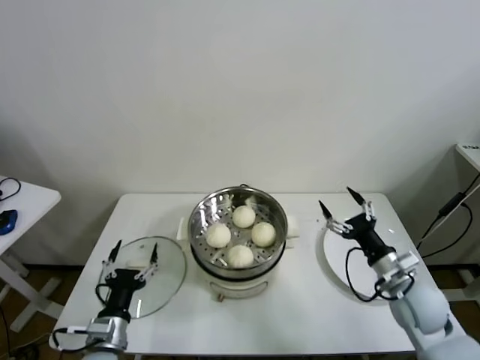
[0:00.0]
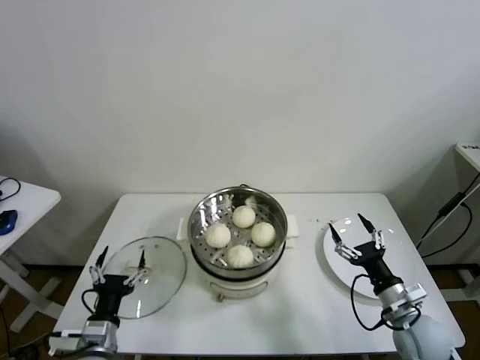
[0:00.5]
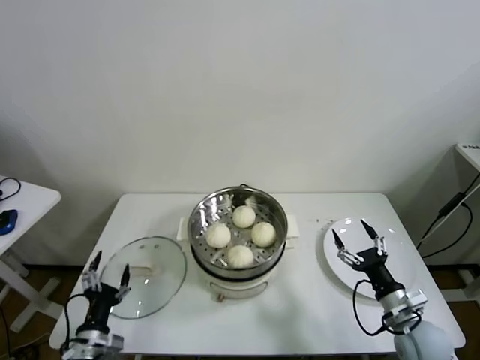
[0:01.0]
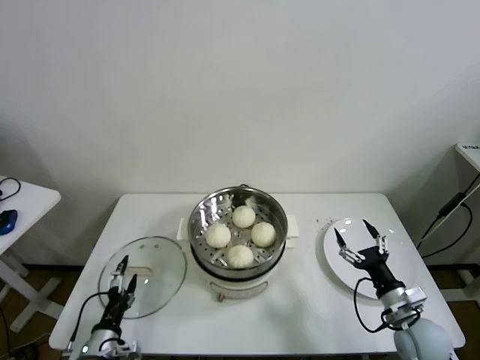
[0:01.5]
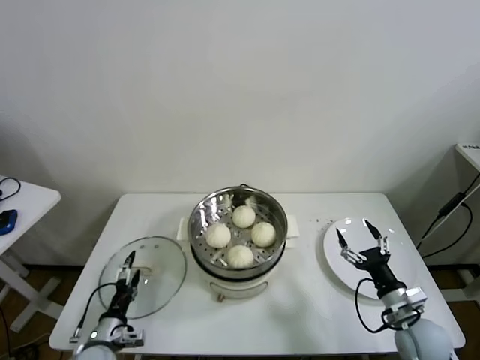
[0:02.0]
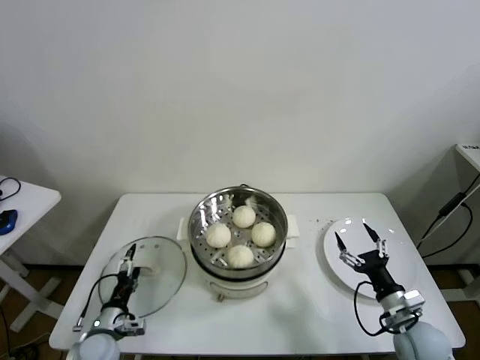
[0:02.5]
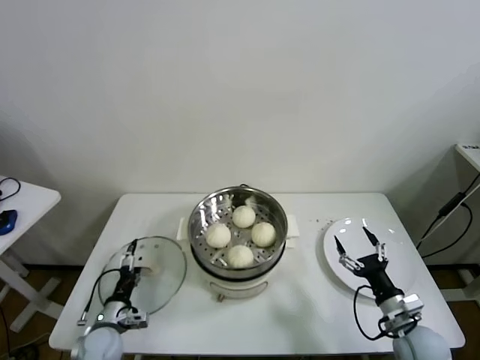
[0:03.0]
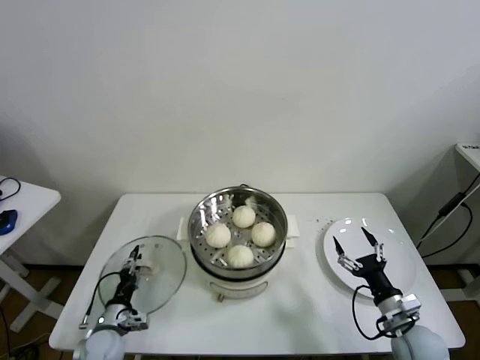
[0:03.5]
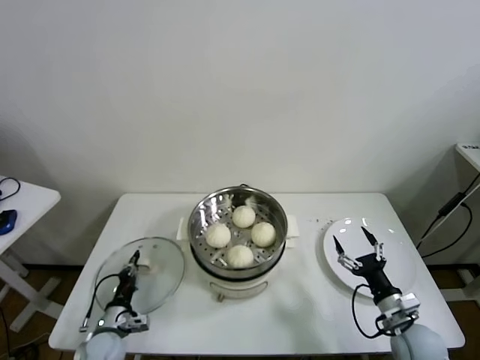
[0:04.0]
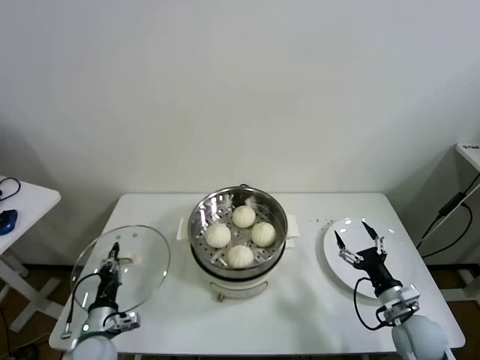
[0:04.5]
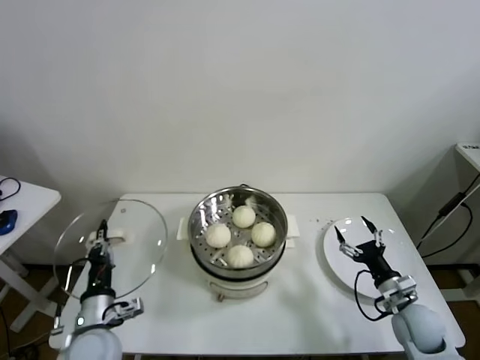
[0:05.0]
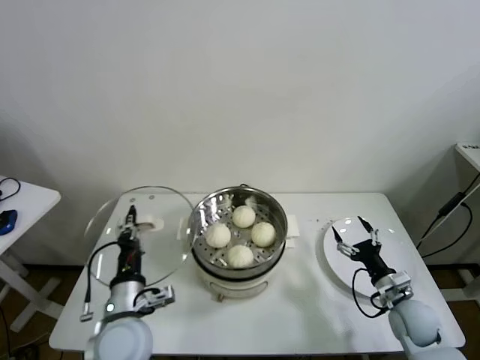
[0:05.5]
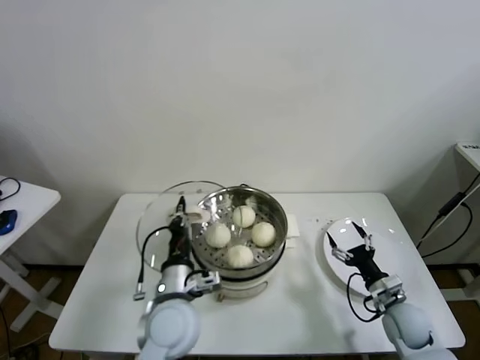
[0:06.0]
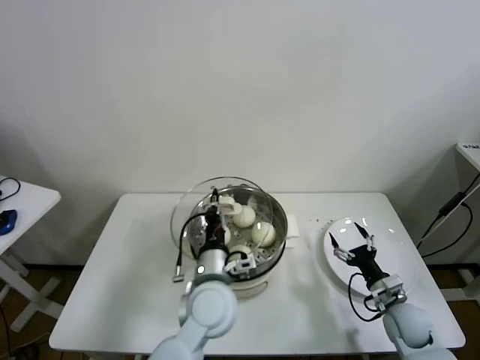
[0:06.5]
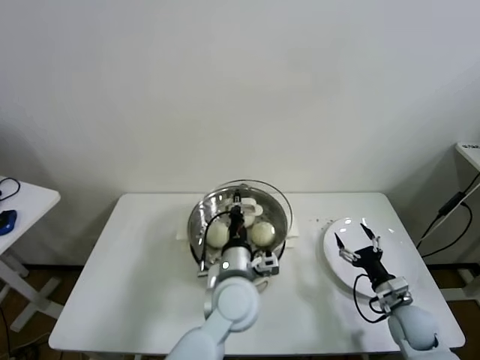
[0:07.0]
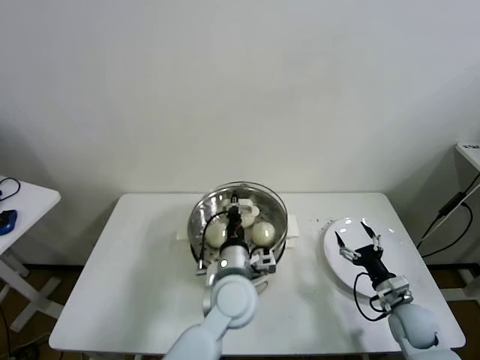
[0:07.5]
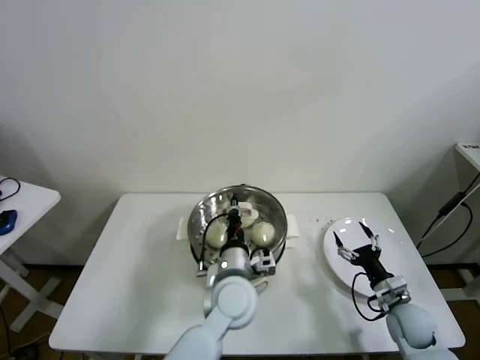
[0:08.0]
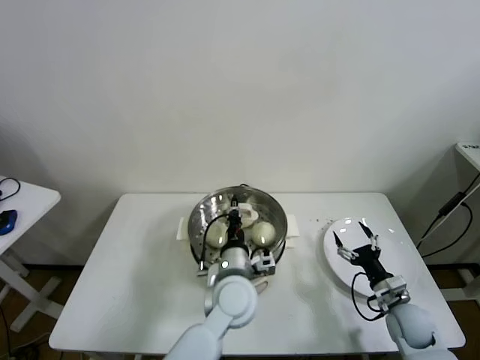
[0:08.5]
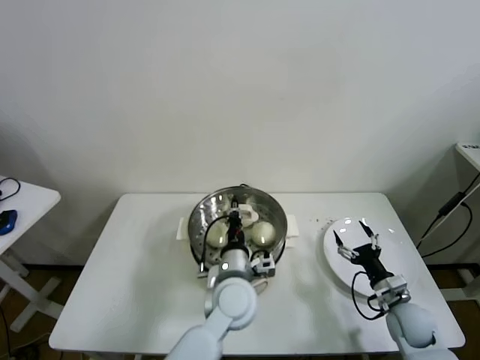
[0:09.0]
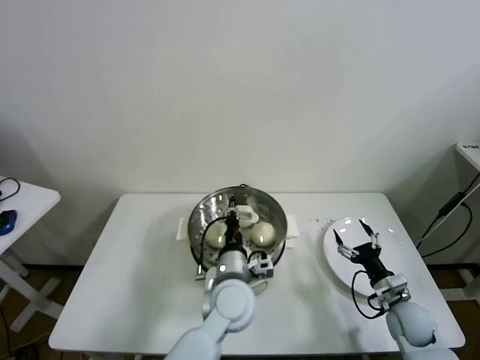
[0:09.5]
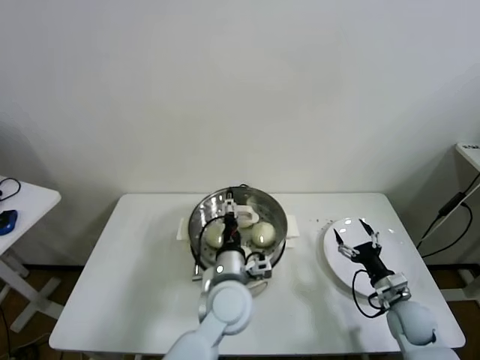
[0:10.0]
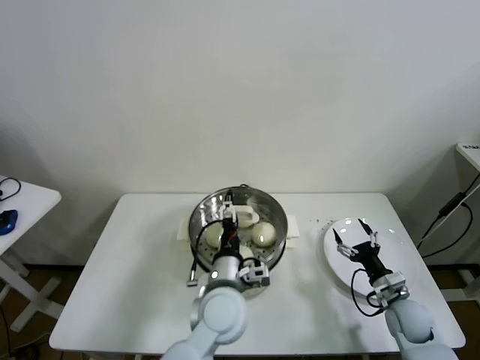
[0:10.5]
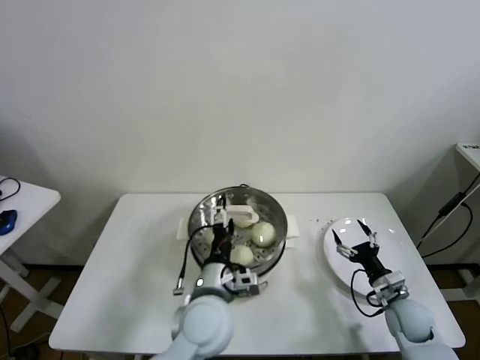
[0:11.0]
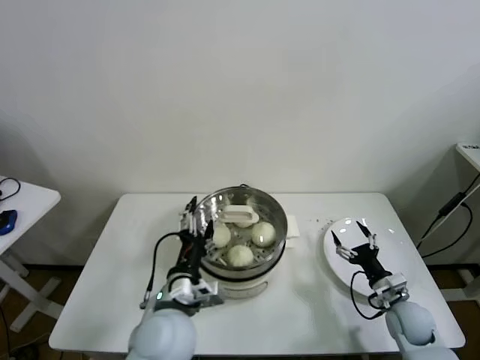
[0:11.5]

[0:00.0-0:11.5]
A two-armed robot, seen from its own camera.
Task of the whole recording: take steamed baozi put them in steamer.
Step, 0:00.0 to 0:03.5: Grasp the pot lid with left gripper.
Step, 0:04.0 to 0:10.5: Place the pot lid on the steamer with left gripper.
0:00.0 to 0:02.0: The left gripper shifts roughly 10 cm downward and to the left. The right gripper shifts some 10 cm downward and backward.
0:02.0 to 0:04.0: The left gripper closes up.
0:04.0 to 0:06.0: The right gripper moves forward, some 5 cm. The left gripper shifts about 30 cm upward and to the right.
0:06.0 to 0:07.5: The left gripper is displaced to the right and forward by some 15 cm.
0:07.5 to 0:09.5: The grippers make only small movements.
0:09.5 to 0:11.5: The left gripper travels to the left and backward by roughly 10 cm, and opens its fingers.

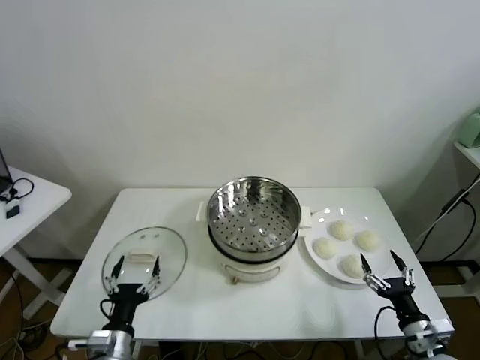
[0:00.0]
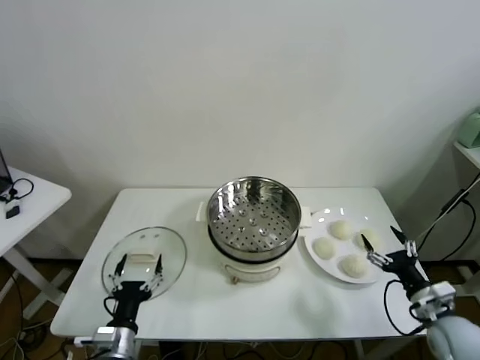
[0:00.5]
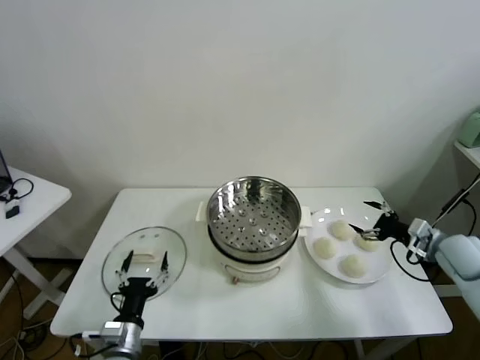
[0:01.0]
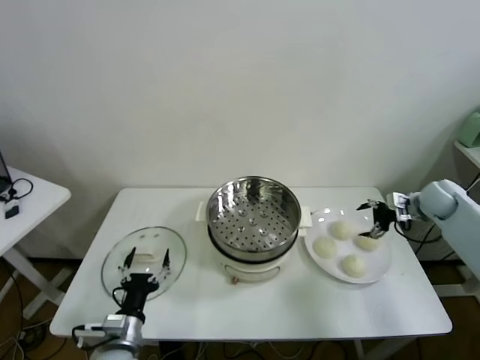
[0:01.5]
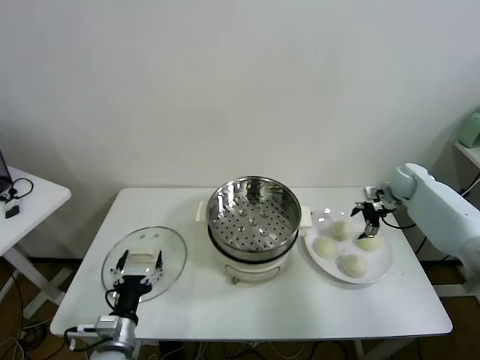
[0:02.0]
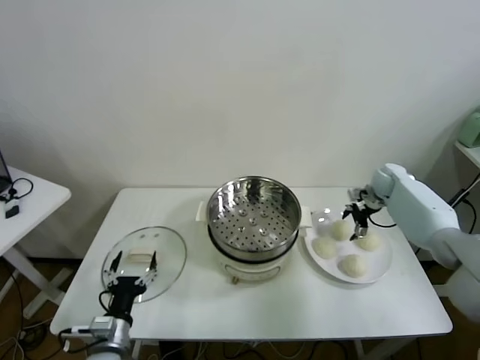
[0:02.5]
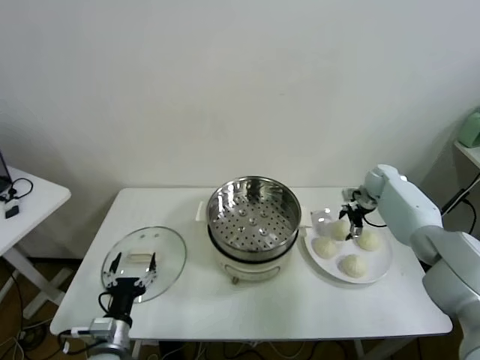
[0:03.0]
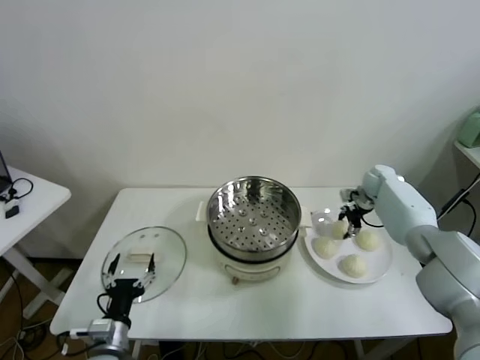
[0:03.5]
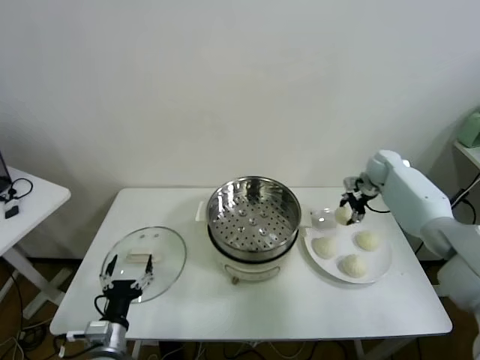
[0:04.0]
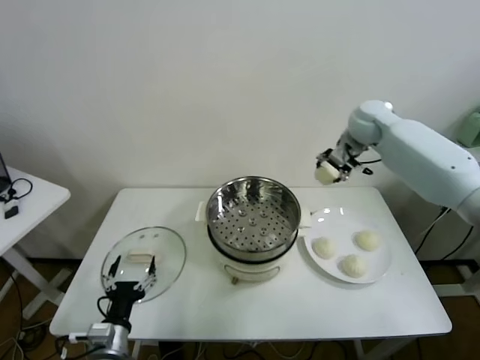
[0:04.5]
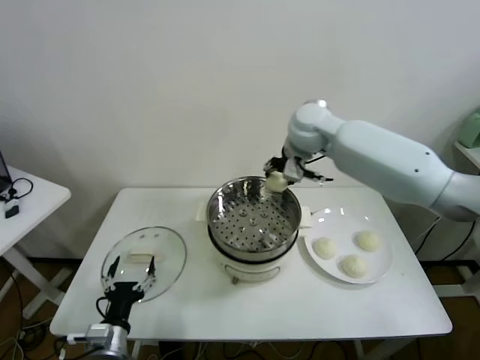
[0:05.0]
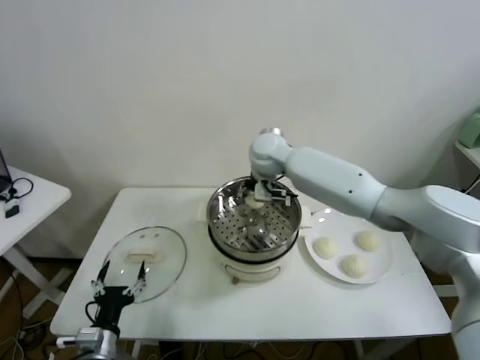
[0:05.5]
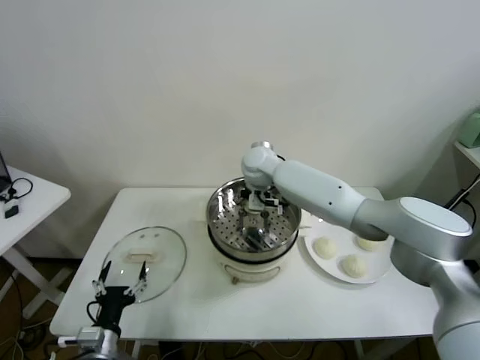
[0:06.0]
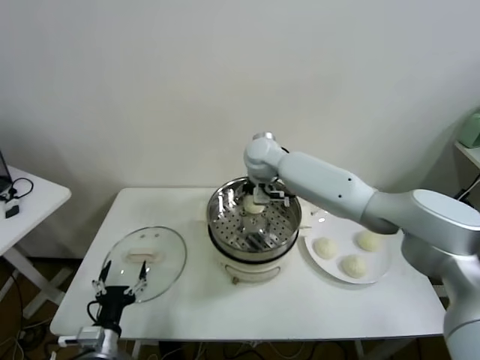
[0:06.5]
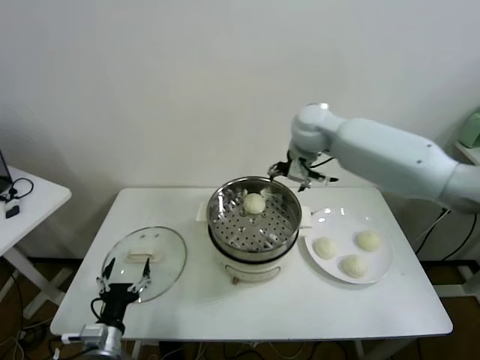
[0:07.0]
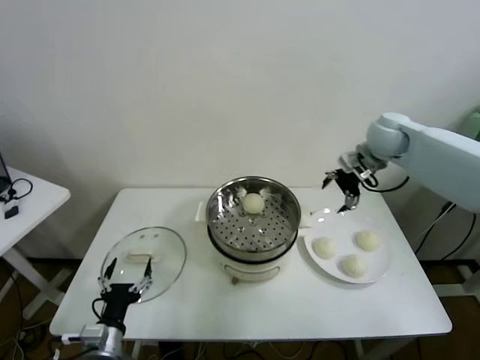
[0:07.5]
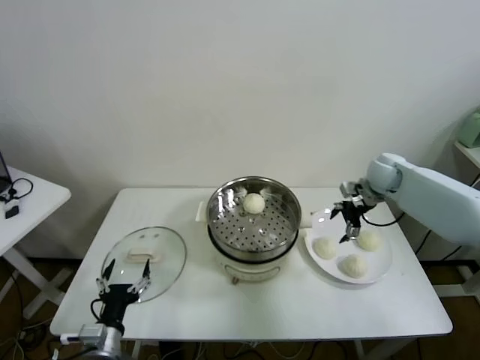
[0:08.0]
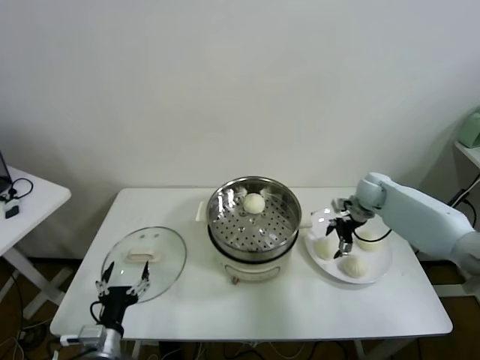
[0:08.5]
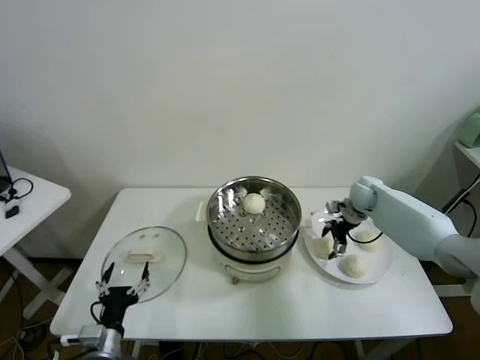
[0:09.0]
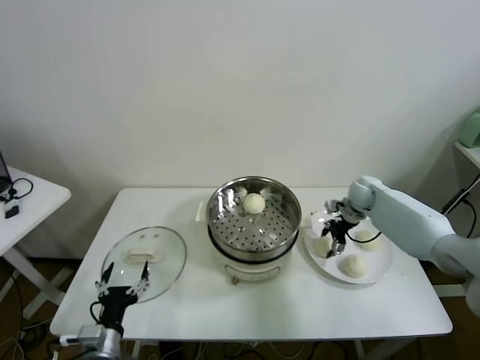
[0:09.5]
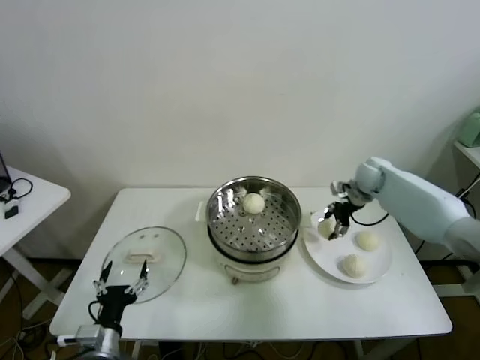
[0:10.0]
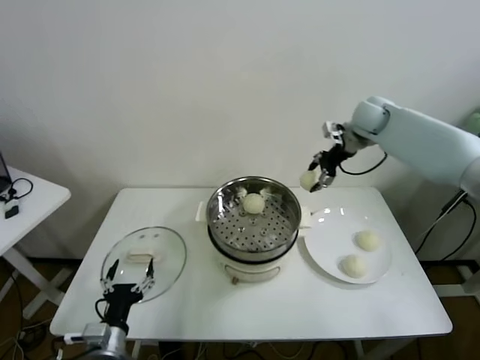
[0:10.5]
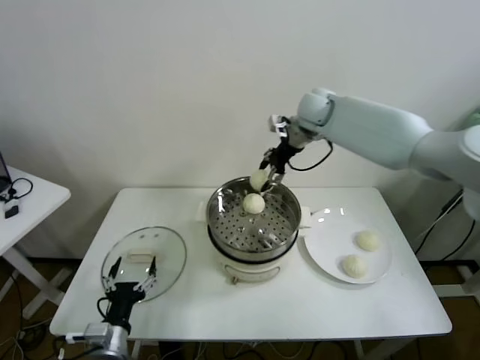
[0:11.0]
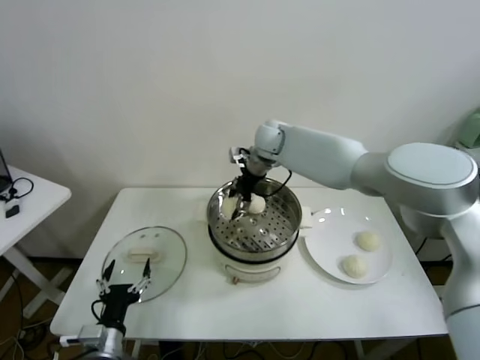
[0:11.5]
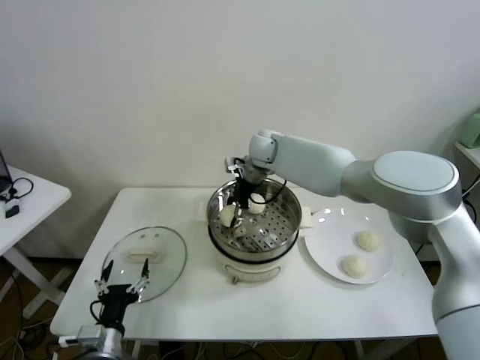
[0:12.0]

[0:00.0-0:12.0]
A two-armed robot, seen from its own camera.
Task of the whole recording: take steamed baozi put them in steamer.
Step, 0:00.0 to 0:03.0: Grasp the baozi in the plate with right gripper.
Step, 0:03.5 to 0:06.5: Place the baozi on the steamer with right gripper.
Step, 0:07.0 to 0:09.0: Grasp the baozi in the plate with right gripper.
0:02.0 to 0:04.0: The right gripper heads to the left, covering some 5 cm, and closes its fingers.
0:04.0 to 0:06.0: The right gripper travels to the left by approximately 35 cm, and opens up.
0:06.0 to 0:08.0: The right gripper goes roughly 30 cm to the right.
0:08.0 to 0:10.0: The right gripper reaches some 10 cm downward, then returns, and closes up.
0:10.0 to 0:12.0: The right gripper shifts roughly 30 cm to the left.

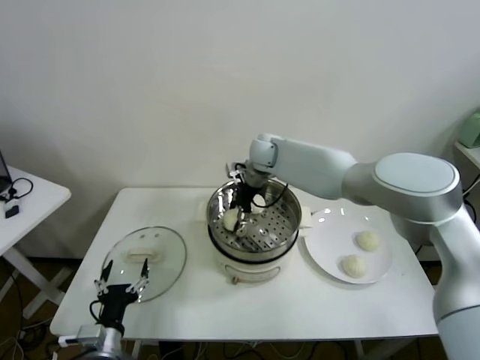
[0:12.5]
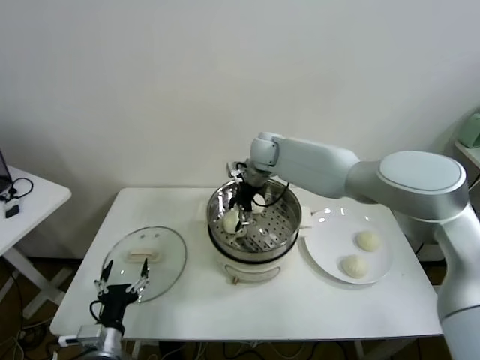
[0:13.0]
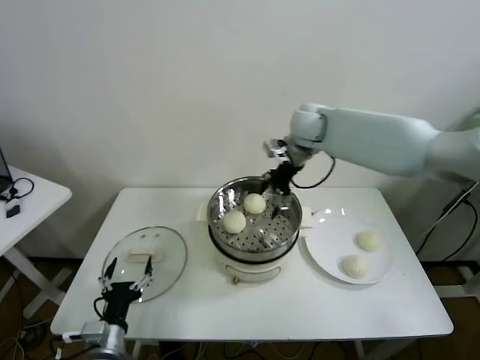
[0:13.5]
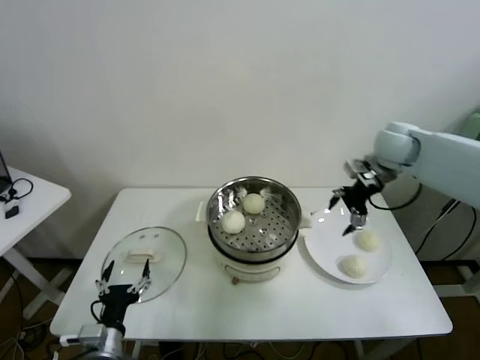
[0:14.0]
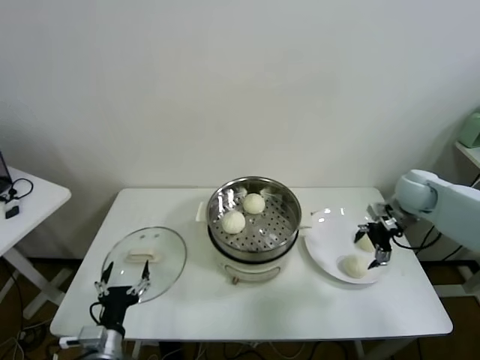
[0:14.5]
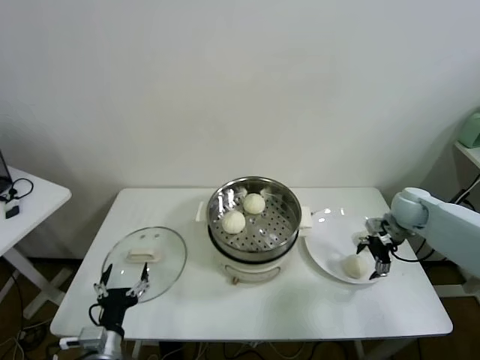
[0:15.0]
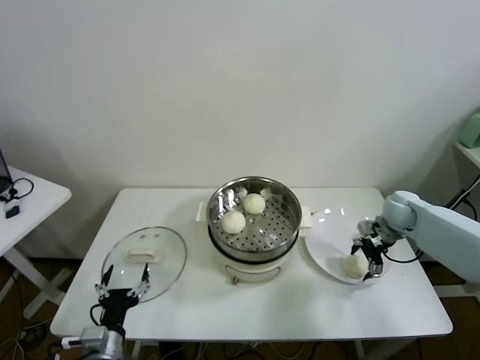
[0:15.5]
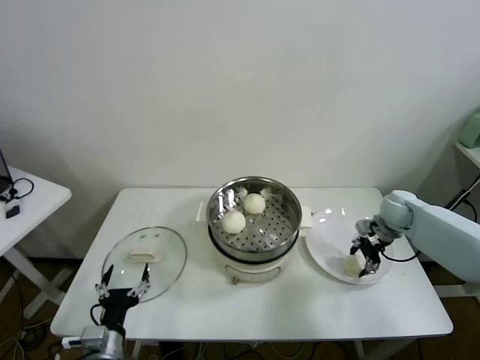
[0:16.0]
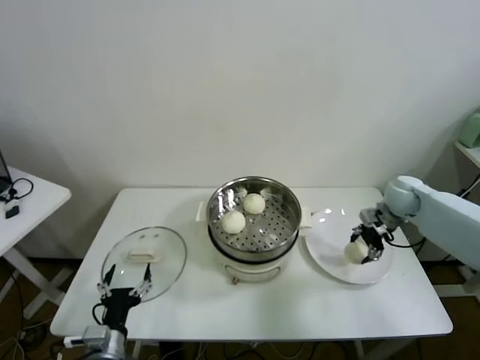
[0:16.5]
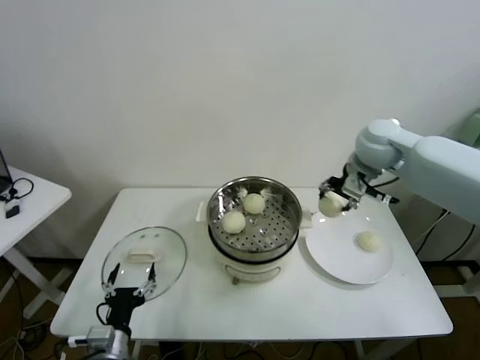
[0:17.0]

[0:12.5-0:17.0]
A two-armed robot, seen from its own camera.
Task of the whole recording: take steamed baozi put them in steamer.
Step, 0:13.5 to 0:16.0: Grasp the baozi in the plate with right gripper.
0:12.5 to 0:14.5: The right gripper is displaced to the right by some 35 cm, and opens.
0:14.5 to 0:17.0: The right gripper travels to the left and upward by about 20 cm, and closes up.
